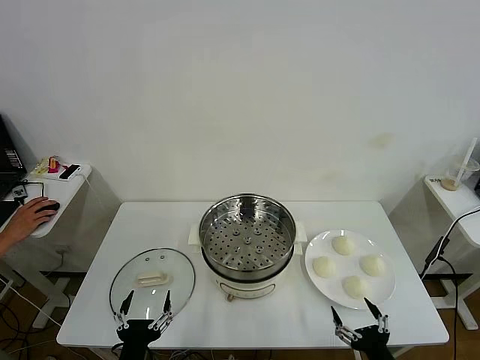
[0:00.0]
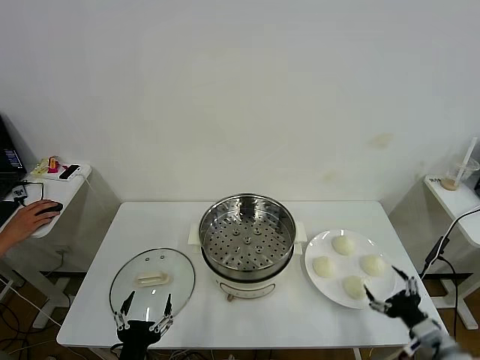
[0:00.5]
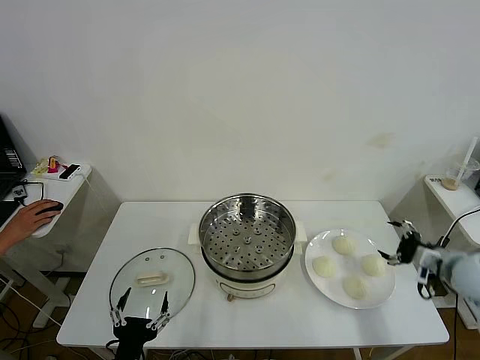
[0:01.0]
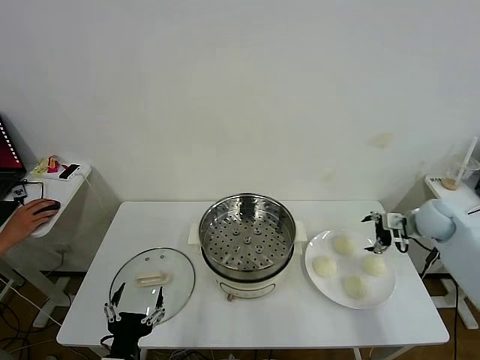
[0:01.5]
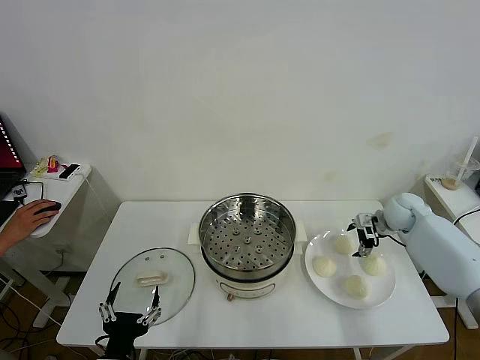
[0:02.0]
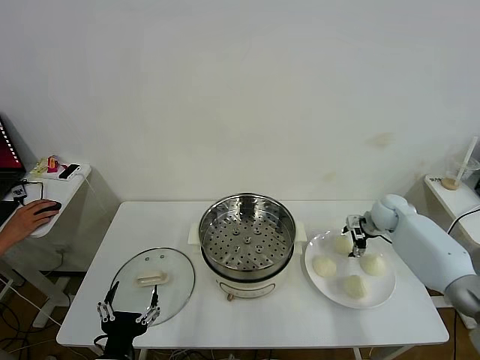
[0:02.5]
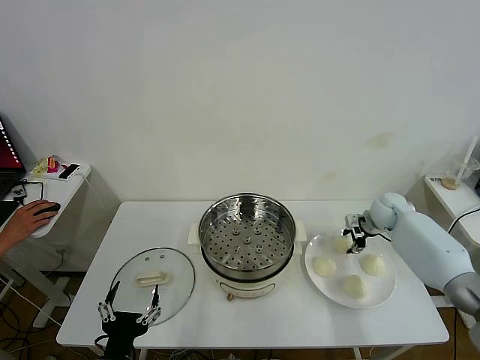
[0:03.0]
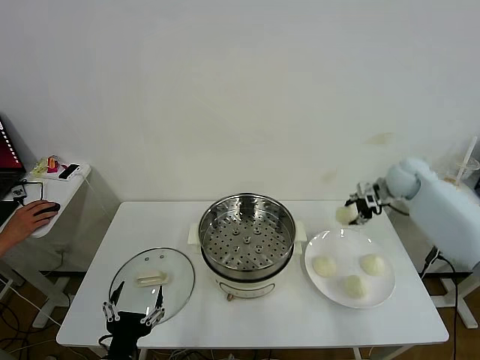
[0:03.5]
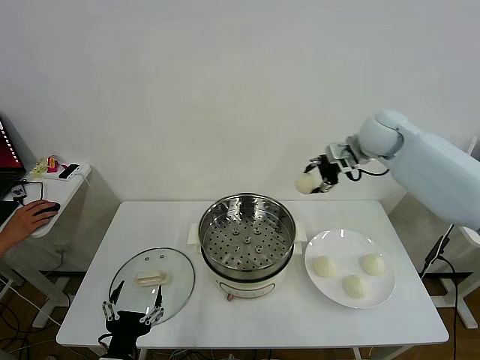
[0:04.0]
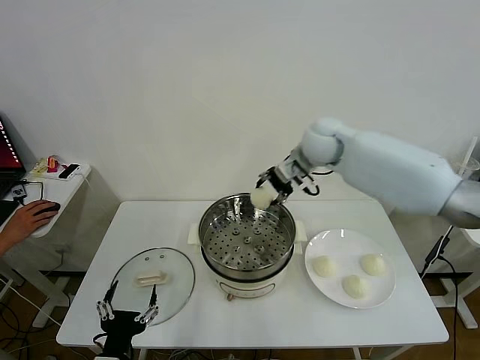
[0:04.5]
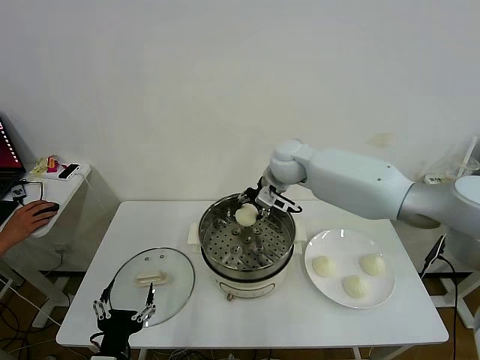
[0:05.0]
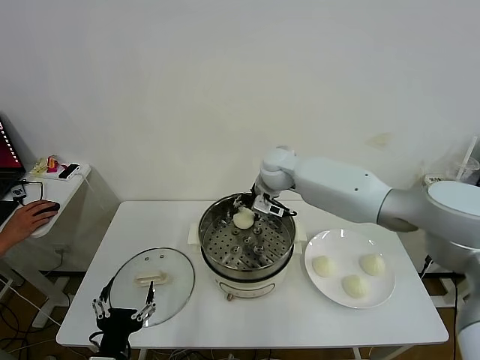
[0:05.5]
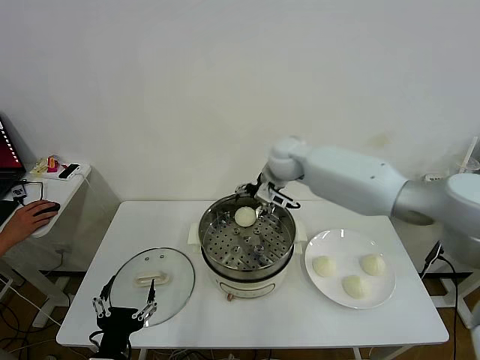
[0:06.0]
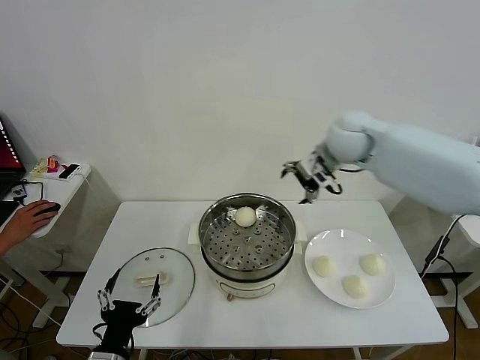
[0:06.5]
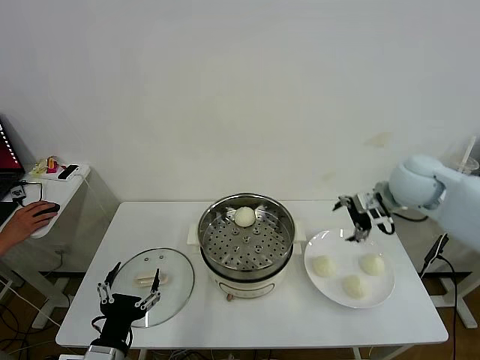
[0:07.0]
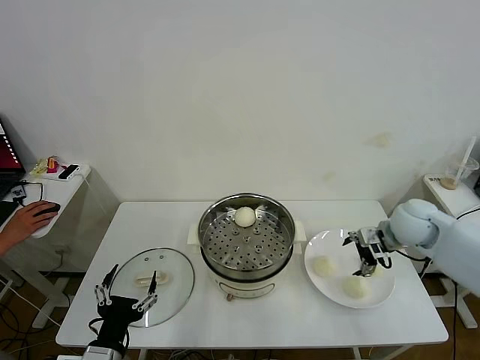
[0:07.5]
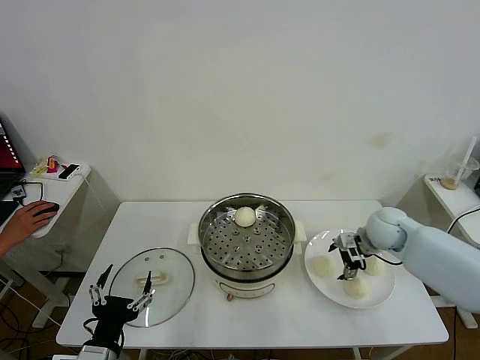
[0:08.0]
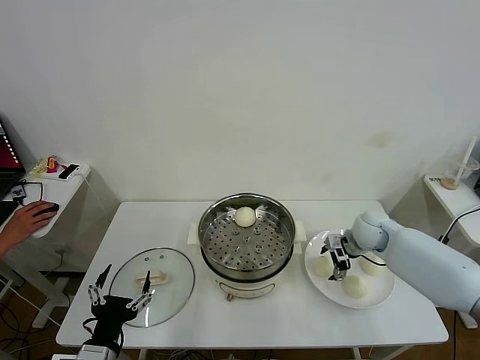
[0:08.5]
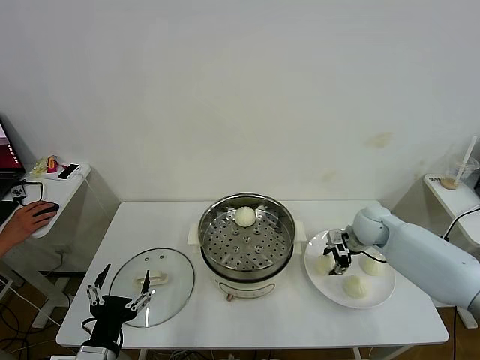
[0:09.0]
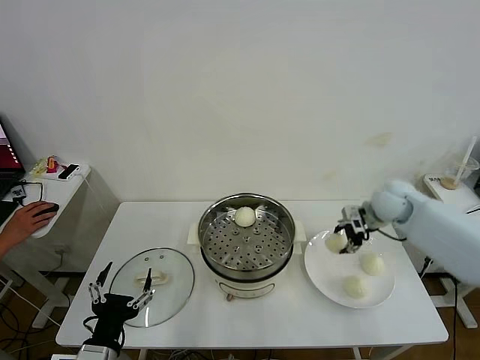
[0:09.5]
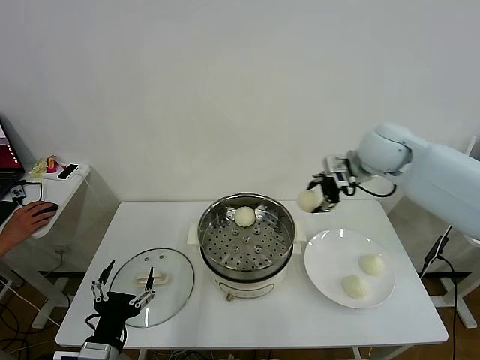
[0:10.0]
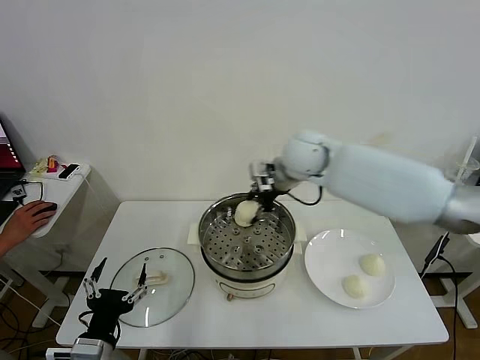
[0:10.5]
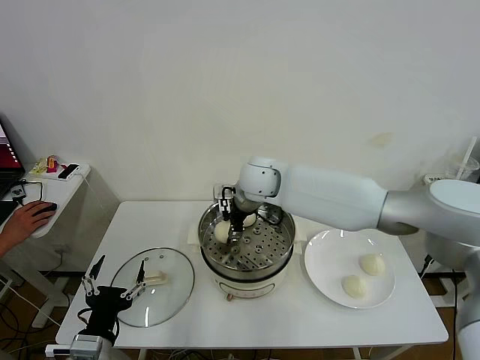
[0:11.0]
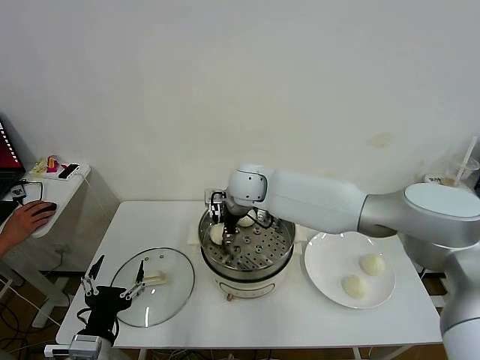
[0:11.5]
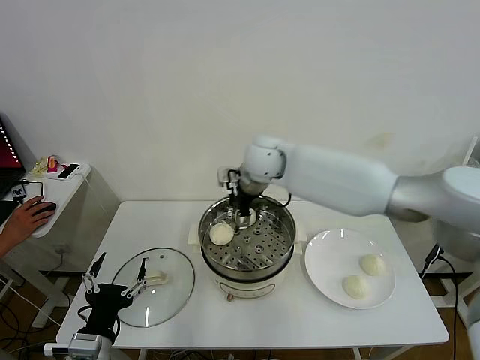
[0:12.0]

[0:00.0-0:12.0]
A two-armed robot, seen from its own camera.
Task of the whole recording: take steamed baozi put them in steamer then cover it.
Step, 0:00.0 to 0:02.5: Grasp the baozi in the plate with right gripper.
Step, 0:03.0 to 0:05.5: Place the baozi on the steamer with right gripper.
Step, 0:06.5 to 0:08.5: Grasp the baozi in the plate with right gripper.
Step, 0:09.0 to 0:12.0: Place the baozi on the steamer with right gripper.
0:02.0 to 0:04.0: The right gripper is displaced upward and to the left by approximately 25 cm, and closes its fingers.
0:04.0 to 0:06.0: The right gripper moves to the left, about 20 cm, and opens up.
0:06.0 to 0:08.0: The right gripper shifts some 30 cm to the right, downward and backward.
0:08.0 to 0:10.0: The right gripper travels upward by about 20 cm, and closes its fingers.
0:10.0 to 0:12.0: The right gripper goes roughly 25 cm to the left, and opens.

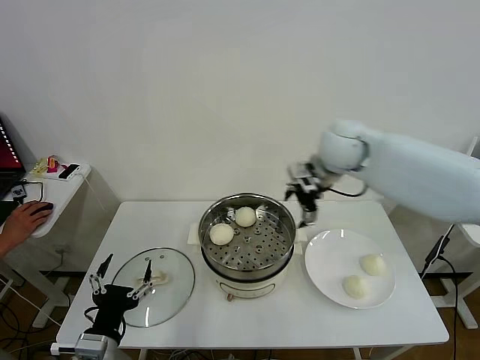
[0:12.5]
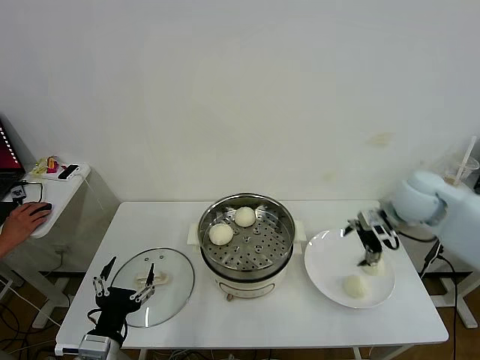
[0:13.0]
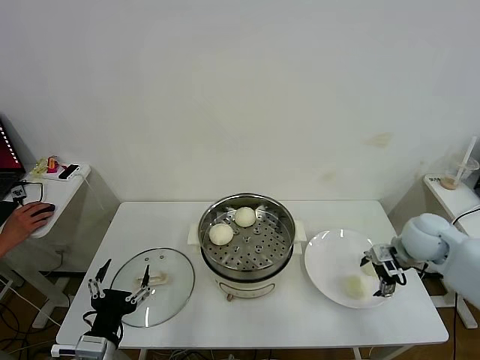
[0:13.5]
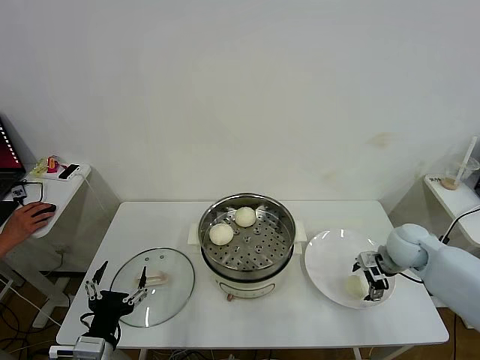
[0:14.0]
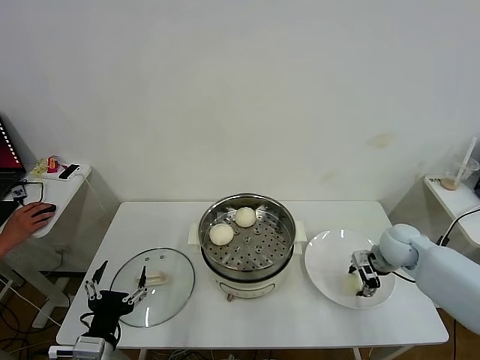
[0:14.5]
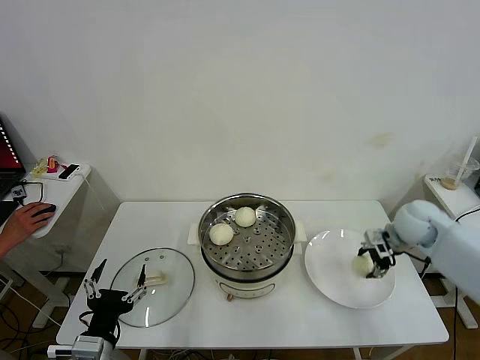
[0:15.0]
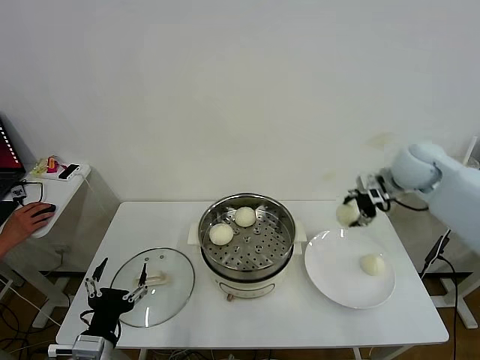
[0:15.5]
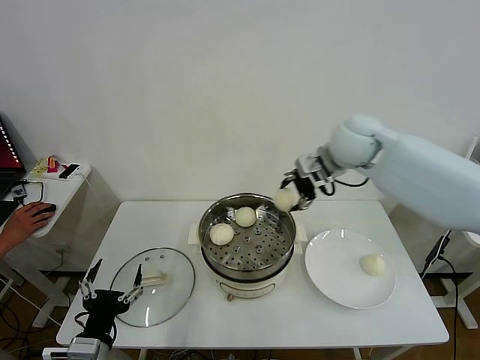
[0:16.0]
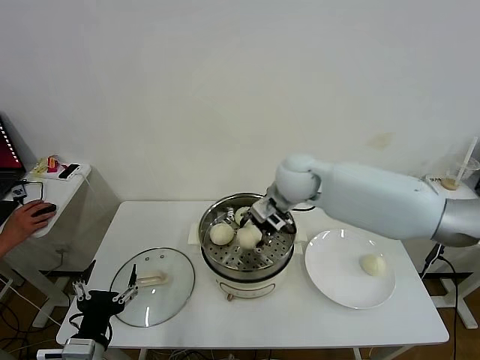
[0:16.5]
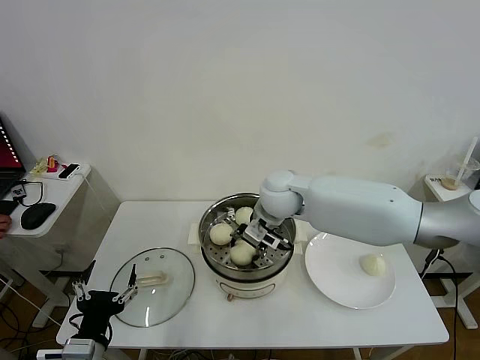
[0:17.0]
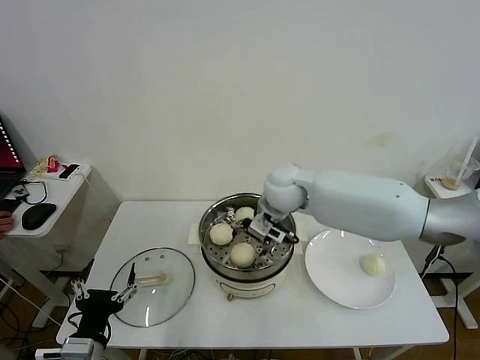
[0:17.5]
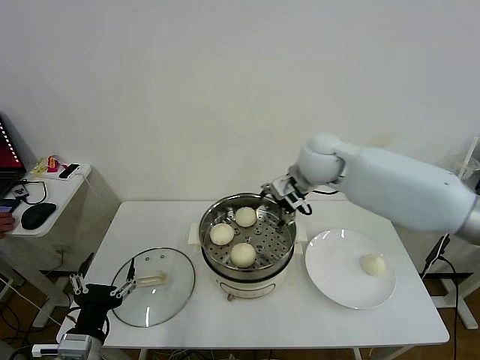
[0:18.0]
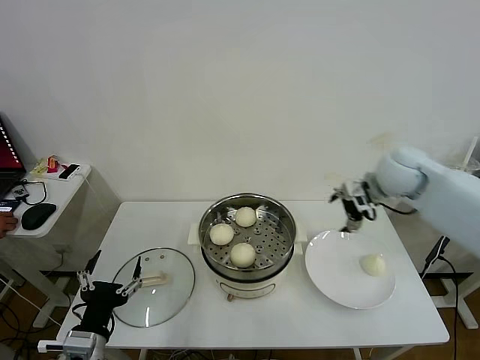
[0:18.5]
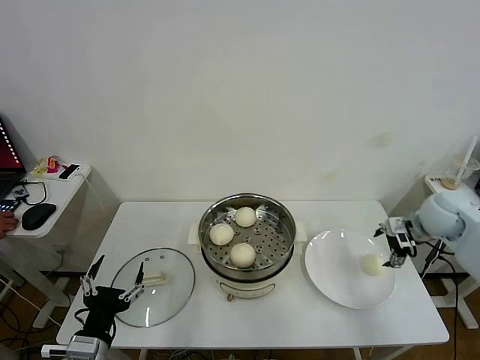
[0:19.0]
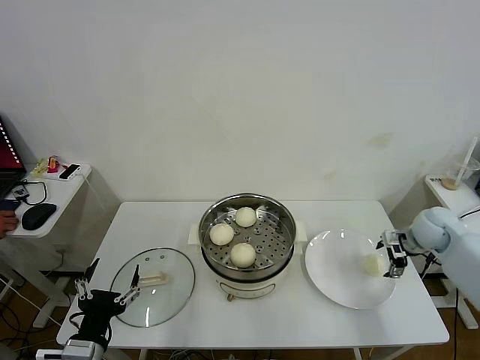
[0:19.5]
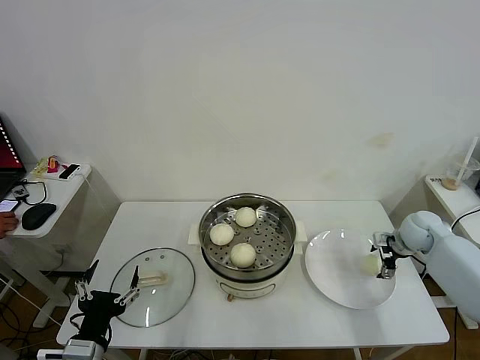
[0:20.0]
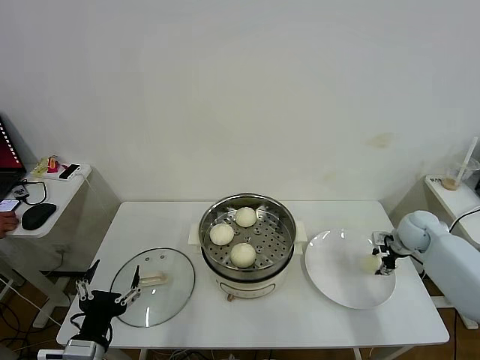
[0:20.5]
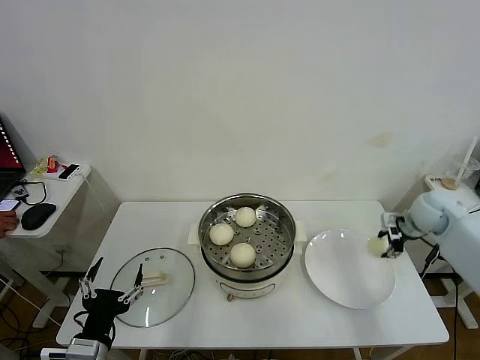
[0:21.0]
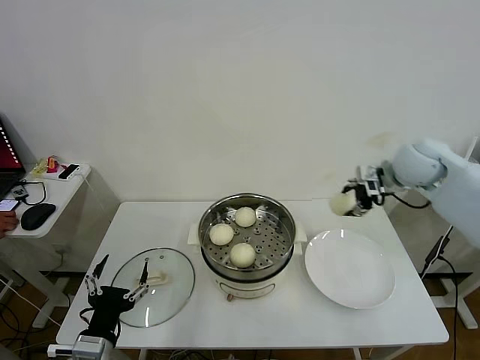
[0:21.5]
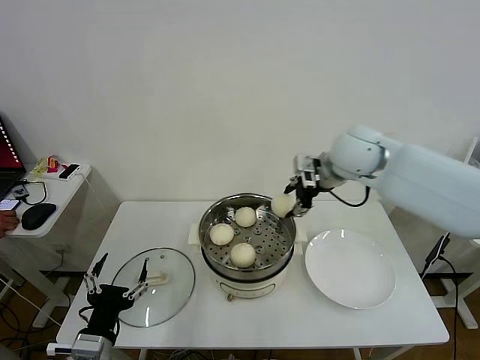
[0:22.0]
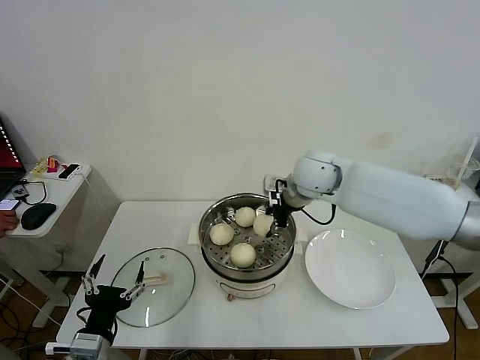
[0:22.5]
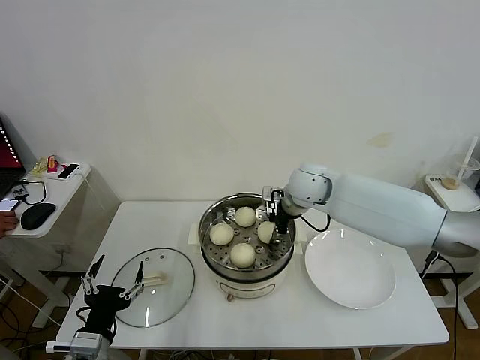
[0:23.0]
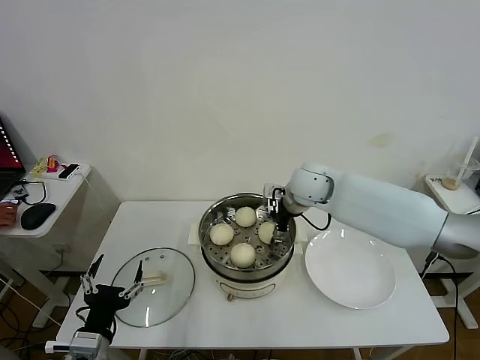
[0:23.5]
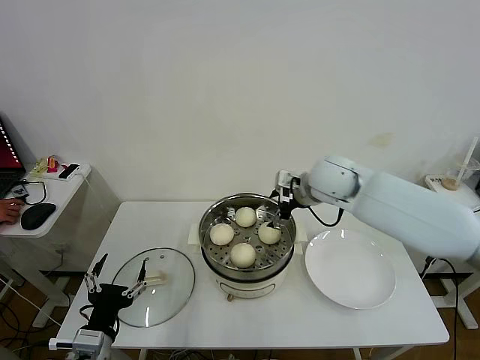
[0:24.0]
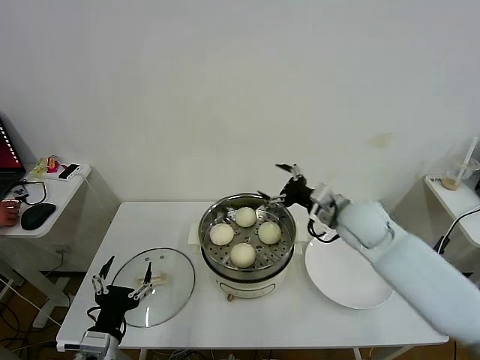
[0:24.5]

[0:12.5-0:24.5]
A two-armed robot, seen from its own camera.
Task of the whole recording: take steamed baozi put them in steamer then cover it.
Step, 0:12.5 to 0:14.5: Grasp the baozi in the plate with right gripper.
Step, 0:15.0 to 0:17.5: Place the baozi on the steamer with right gripper.
Step, 0:18.0 to 0:20.5: Grasp the baozi in the plate with right gripper.
Step, 0:21.0 to 0:23.5: Place the baozi on the steamer with right gripper.
0:12.5 to 0:14.5: The right gripper travels downward and to the right by some 30 cm, and closes its fingers.
0:14.5 to 0:16.5: The right gripper shifts some 30 cm to the left and upward.
0:16.5 to 0:18.5: The right gripper goes about 20 cm to the right, and opens up.
0:18.5 to 0:20.5: The right gripper moves downward and to the right, approximately 25 cm, and closes up.
0:20.5 to 0:22.5: The right gripper travels to the left and upward by about 35 cm.
0:22.5 to 0:24.5: The right gripper goes approximately 15 cm to the right, backward and downward, and opens.

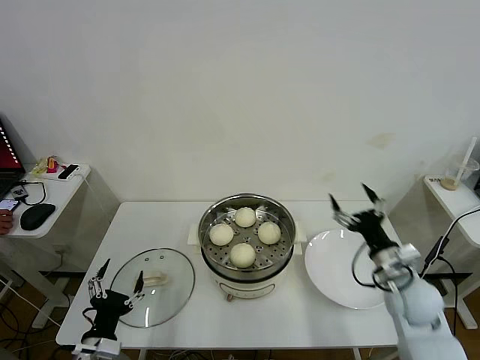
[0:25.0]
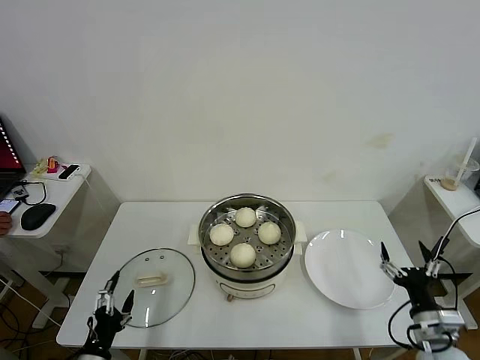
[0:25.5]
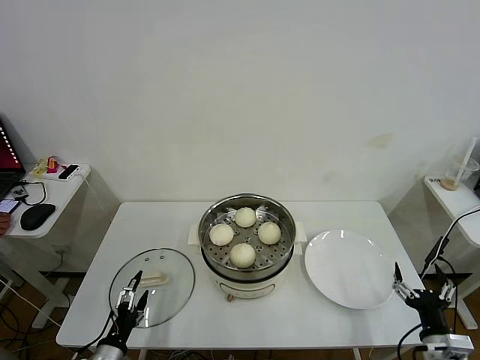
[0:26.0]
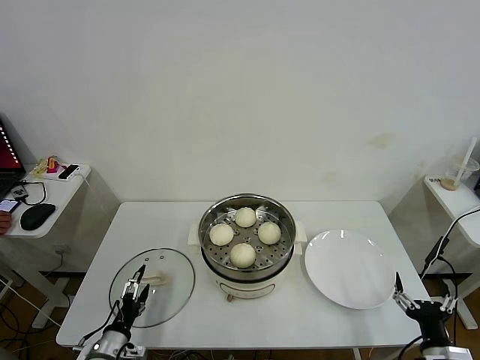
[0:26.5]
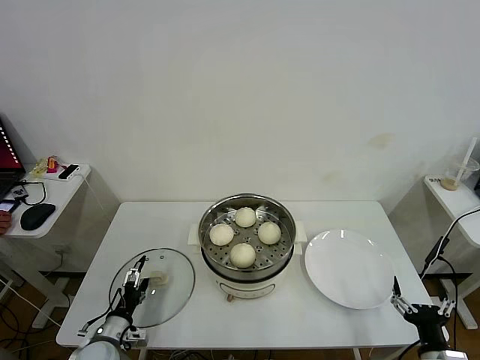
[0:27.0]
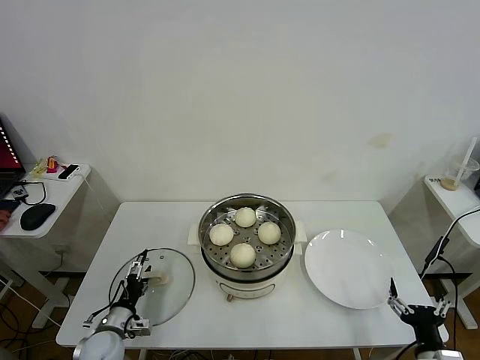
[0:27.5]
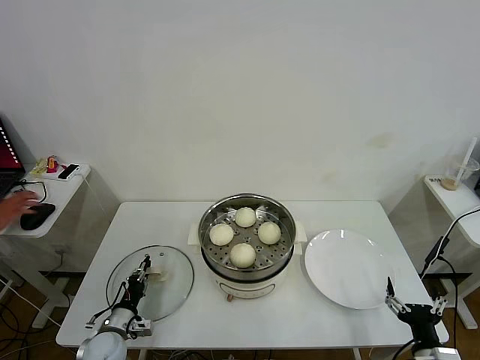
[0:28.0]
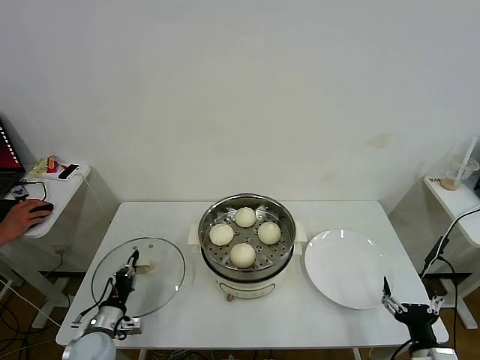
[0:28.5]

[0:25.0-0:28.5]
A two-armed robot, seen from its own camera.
Task of the whole recording: take steamed baozi put them in steamer then cover it.
Step, 0:25.0 to 0:28.0: Grasp the pot lid with left gripper.
0:25.0 to 0:27.0: The right gripper travels backward and downward by approximately 20 cm, while the left gripper moves downward and forward, roughly 15 cm.
0:27.0 to 0:28.5: The left gripper closes.
